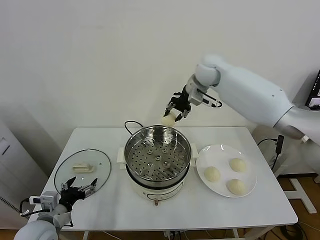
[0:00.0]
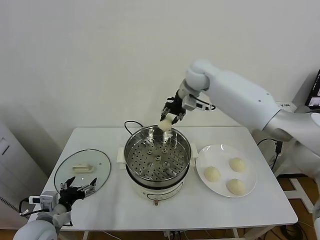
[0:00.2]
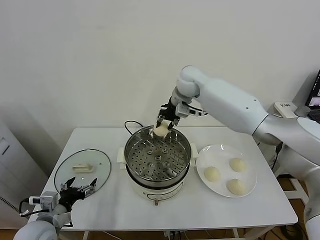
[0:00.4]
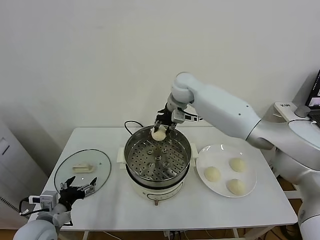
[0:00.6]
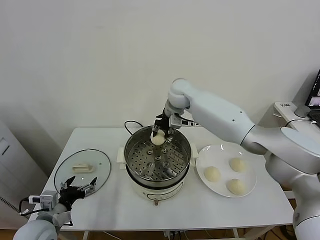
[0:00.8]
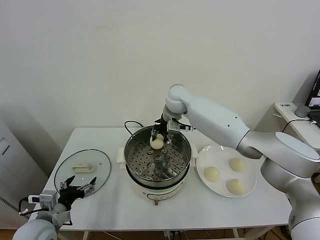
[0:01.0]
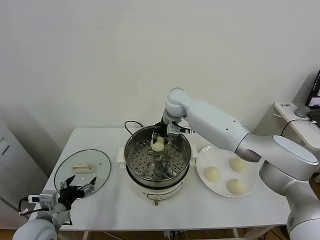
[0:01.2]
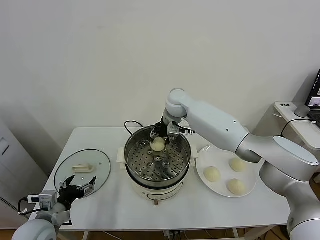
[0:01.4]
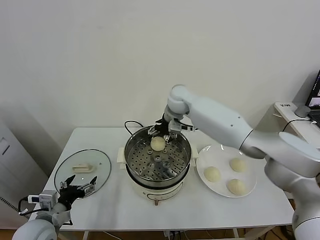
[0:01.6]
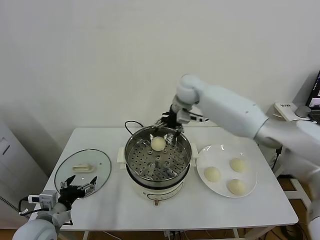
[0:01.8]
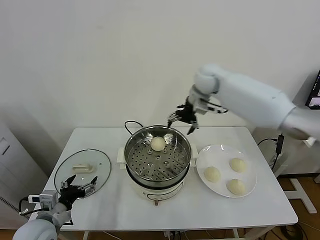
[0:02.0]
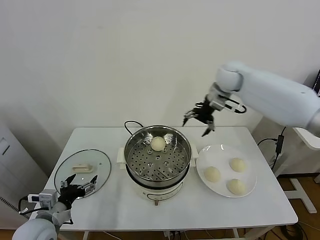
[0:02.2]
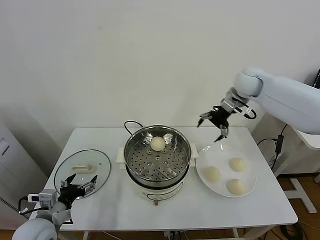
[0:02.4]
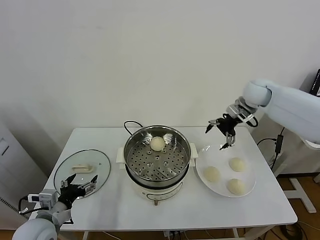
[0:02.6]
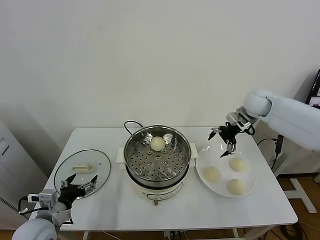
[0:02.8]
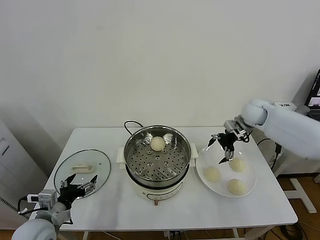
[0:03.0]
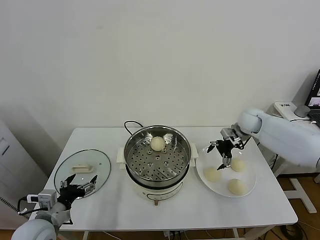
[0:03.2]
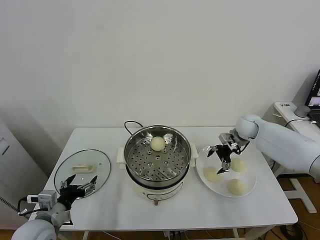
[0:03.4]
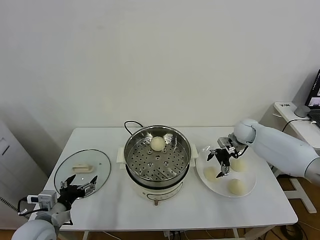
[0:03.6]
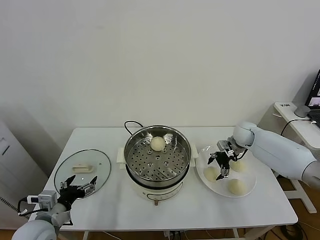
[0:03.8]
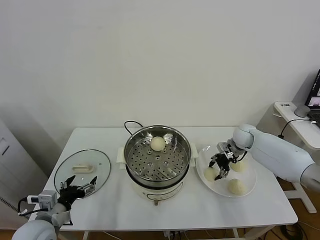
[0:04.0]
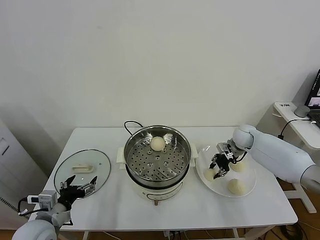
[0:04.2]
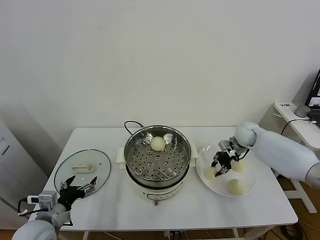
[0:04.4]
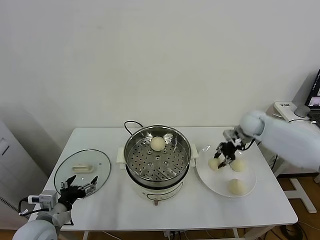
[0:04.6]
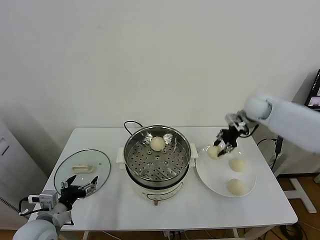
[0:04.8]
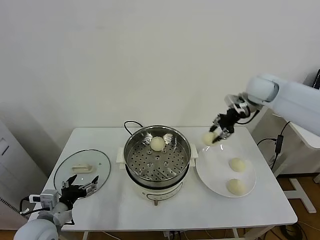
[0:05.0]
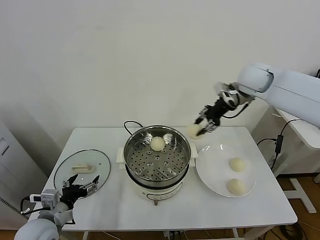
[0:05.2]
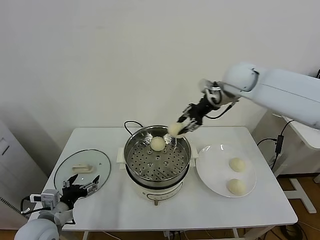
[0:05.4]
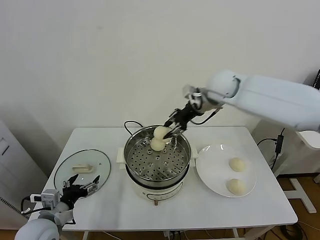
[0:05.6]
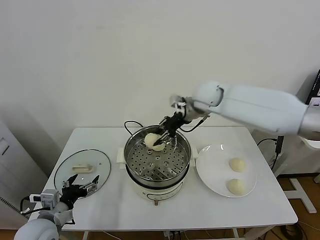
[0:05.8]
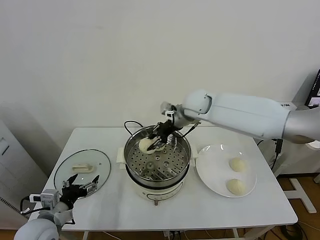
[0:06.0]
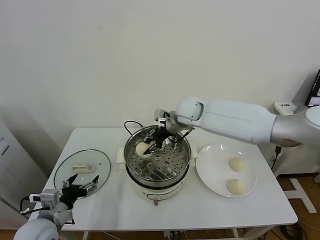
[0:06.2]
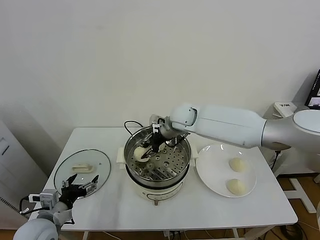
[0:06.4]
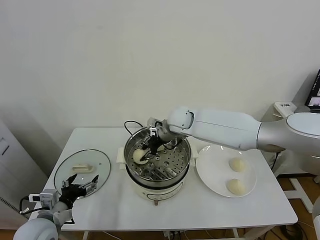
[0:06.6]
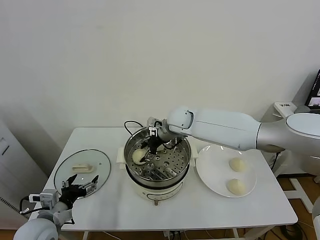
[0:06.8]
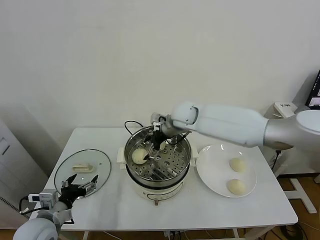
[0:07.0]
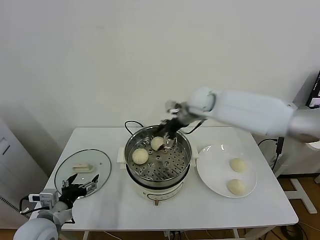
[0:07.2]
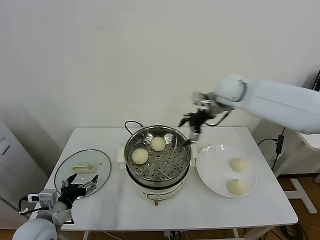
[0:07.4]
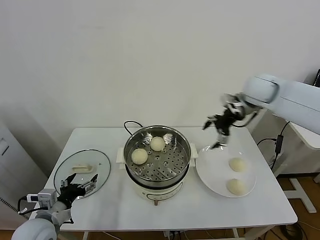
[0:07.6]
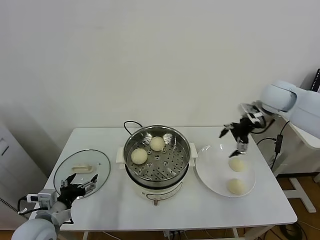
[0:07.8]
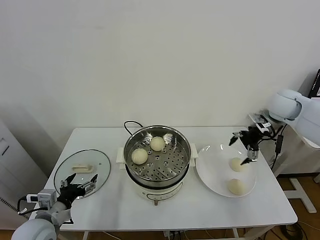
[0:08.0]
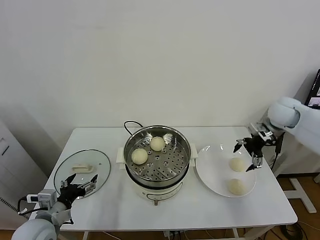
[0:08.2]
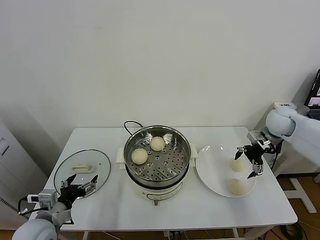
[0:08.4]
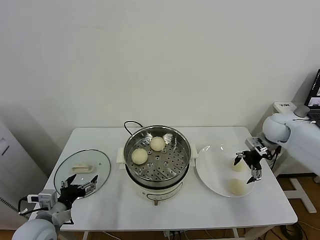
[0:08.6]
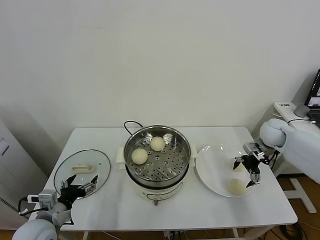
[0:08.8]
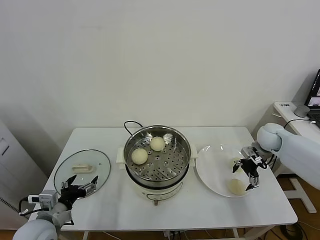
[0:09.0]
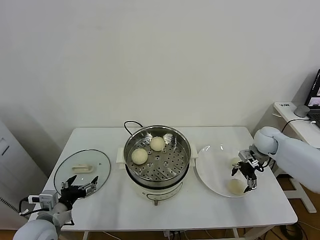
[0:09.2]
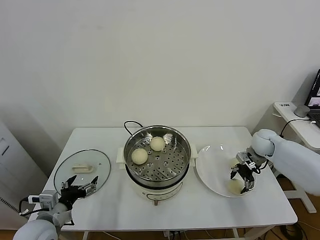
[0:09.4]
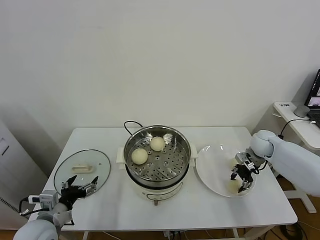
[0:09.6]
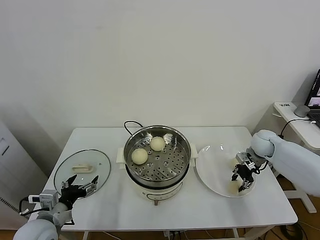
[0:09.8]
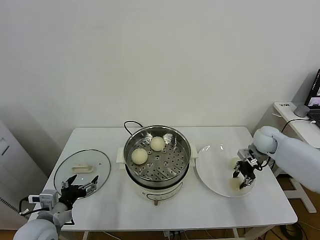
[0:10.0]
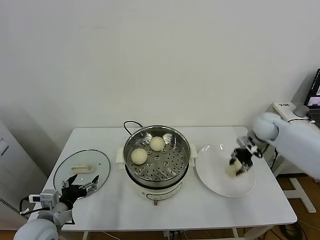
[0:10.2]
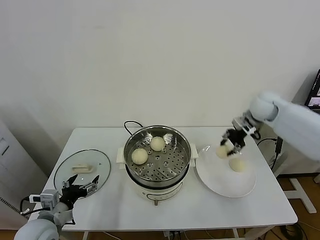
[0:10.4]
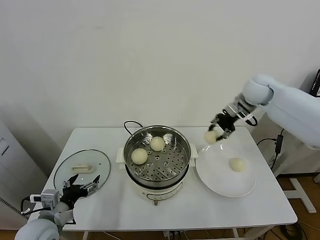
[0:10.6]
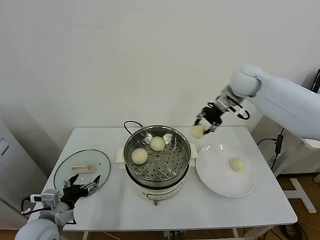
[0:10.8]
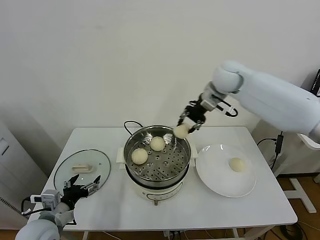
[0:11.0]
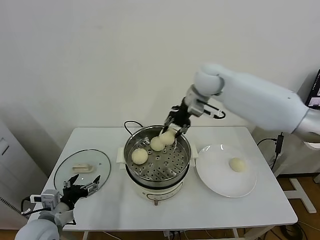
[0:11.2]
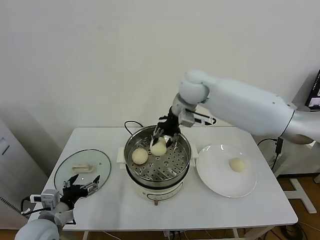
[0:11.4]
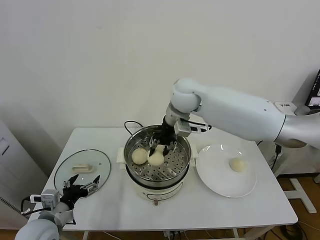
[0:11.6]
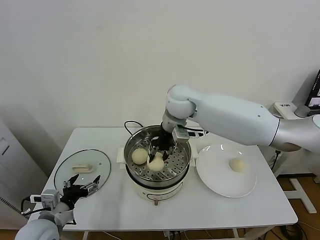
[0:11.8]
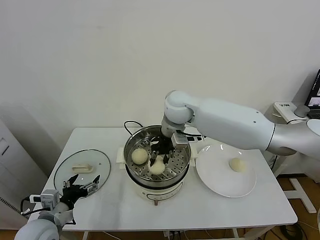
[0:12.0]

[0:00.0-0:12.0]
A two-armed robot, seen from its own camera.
Task of the whole recording: take steamed baozi put them in steamer.
Step, 0.0 to 1.6 s: Place the baozi on the steamer with right gripper.
Step, 1.8 to 4.0 s: Grasp the baozi in the plate with right gripper.
Step, 4.4 to 7.0 s: Place the baozi on the steamer with right gripper.
Step, 7.2 to 9.6 s: Grasp the baozi in the plate with right gripper.
0.0 to 1.6 s: The right gripper goes approximately 10 cm downward and to the left, and opens its fingers.
1.6 to 3.0 s: The right gripper heads to the right, covering about 25 cm.
3.0 to 4.4 s: The right gripper travels downward by about 5 cm, and closes.
4.4 to 6.0 s: The right gripper moves to the left and upward, approximately 25 cm.
6.0 to 7.6 s: The right gripper moves to the right, some 20 cm, and opens up.
7.6 to 9.0 s: The right gripper is displaced downward and to the right by approximately 20 cm.
9.0 to 10.4 s: The right gripper goes approximately 15 cm upward and to the left, and closes.
10.4 to 12.0 s: The right gripper goes about 30 cm to the left.

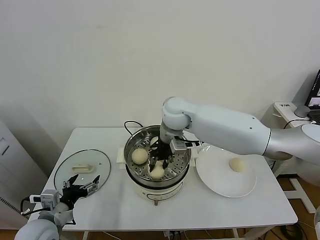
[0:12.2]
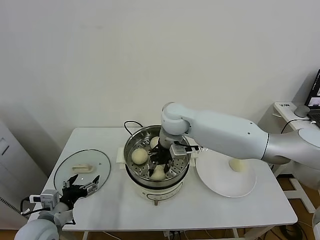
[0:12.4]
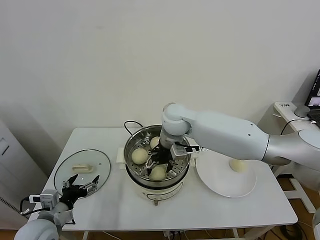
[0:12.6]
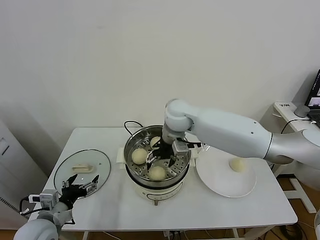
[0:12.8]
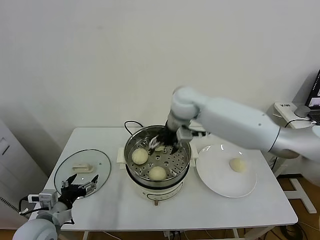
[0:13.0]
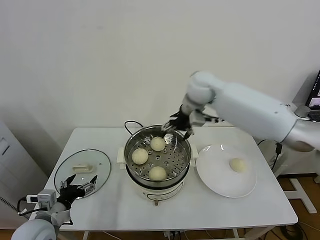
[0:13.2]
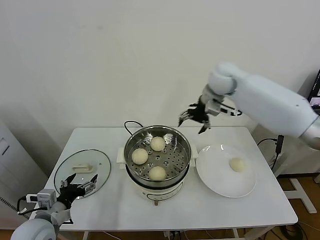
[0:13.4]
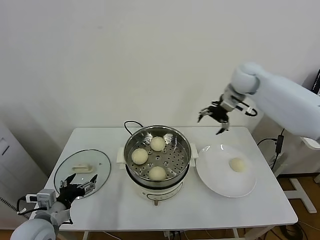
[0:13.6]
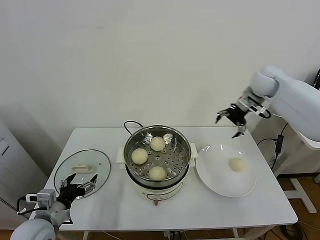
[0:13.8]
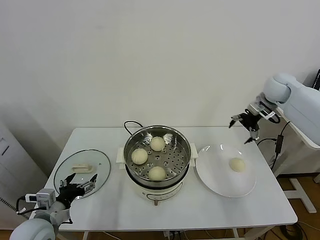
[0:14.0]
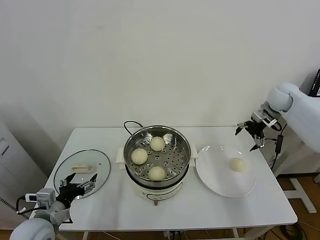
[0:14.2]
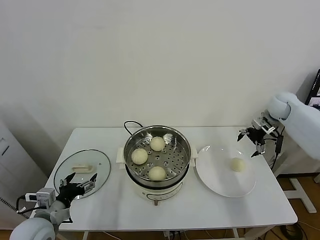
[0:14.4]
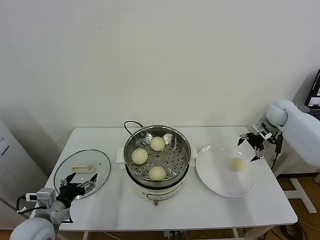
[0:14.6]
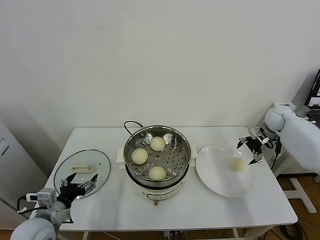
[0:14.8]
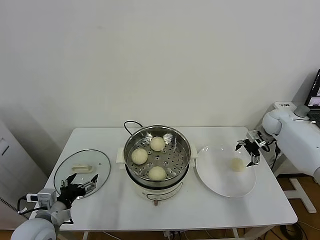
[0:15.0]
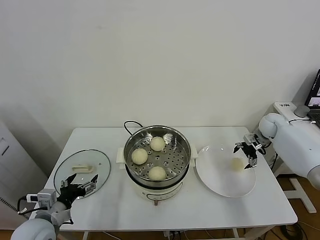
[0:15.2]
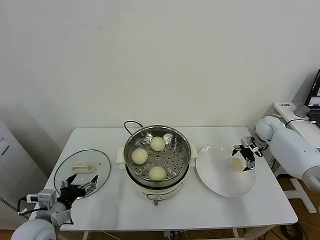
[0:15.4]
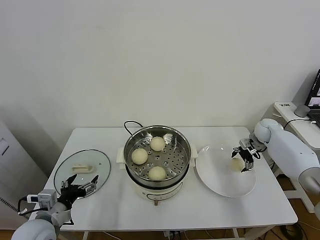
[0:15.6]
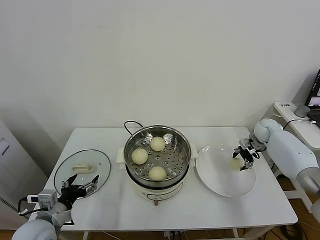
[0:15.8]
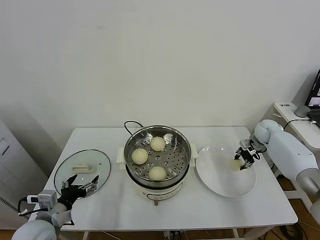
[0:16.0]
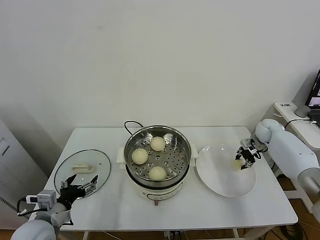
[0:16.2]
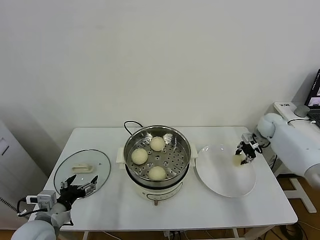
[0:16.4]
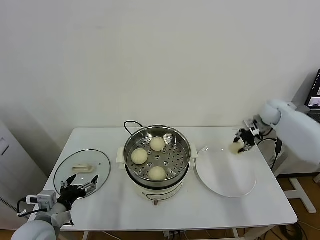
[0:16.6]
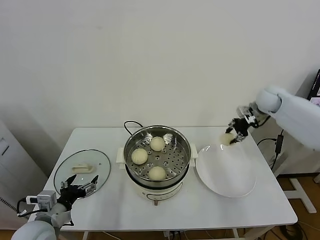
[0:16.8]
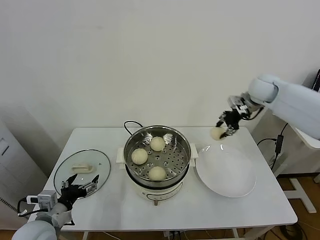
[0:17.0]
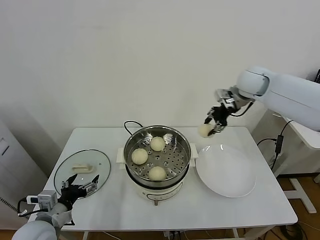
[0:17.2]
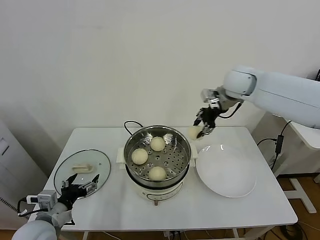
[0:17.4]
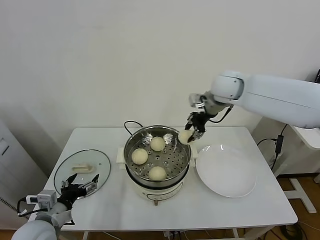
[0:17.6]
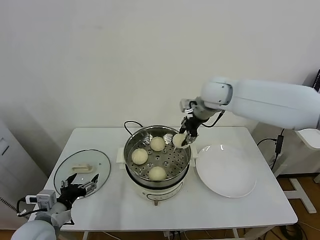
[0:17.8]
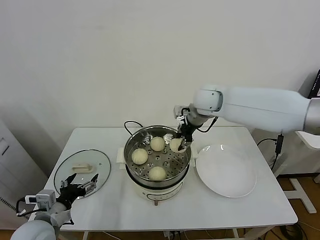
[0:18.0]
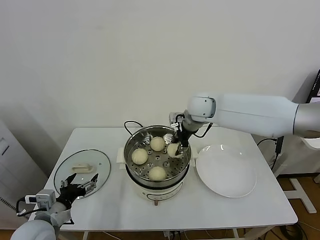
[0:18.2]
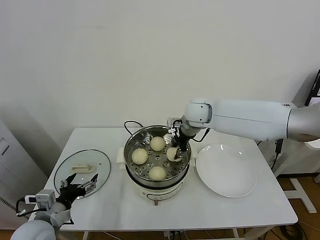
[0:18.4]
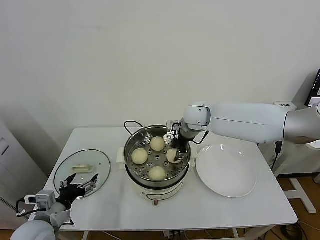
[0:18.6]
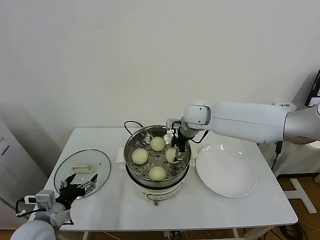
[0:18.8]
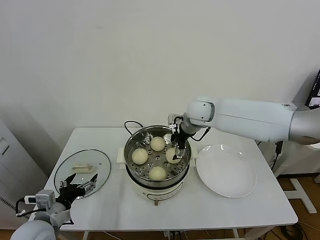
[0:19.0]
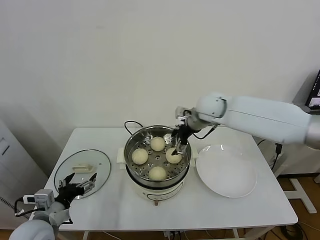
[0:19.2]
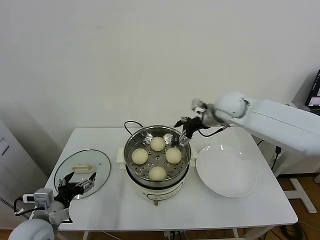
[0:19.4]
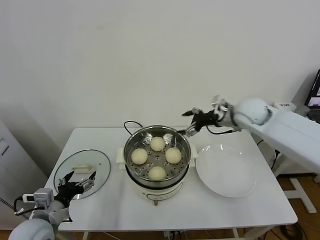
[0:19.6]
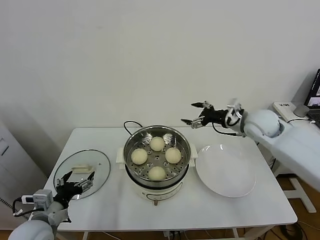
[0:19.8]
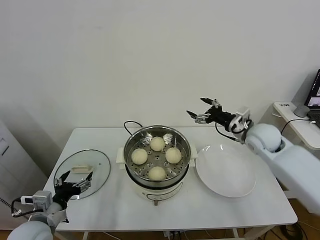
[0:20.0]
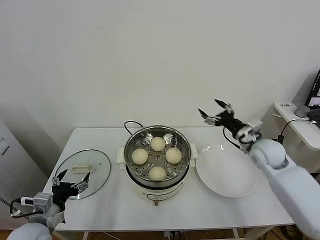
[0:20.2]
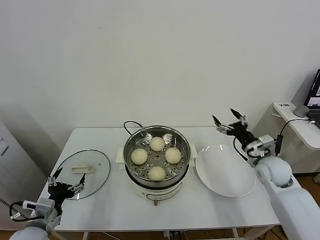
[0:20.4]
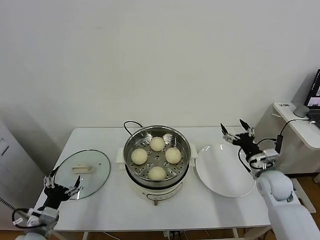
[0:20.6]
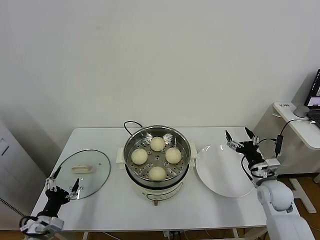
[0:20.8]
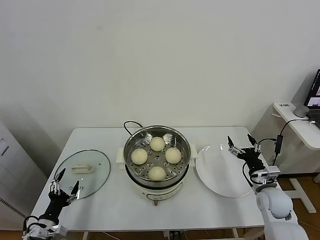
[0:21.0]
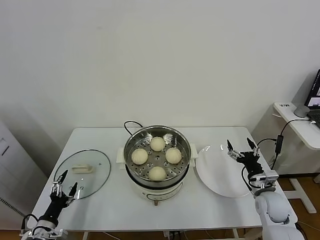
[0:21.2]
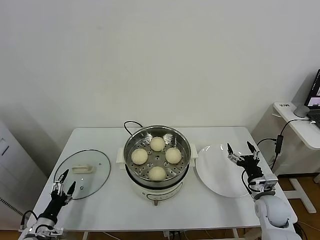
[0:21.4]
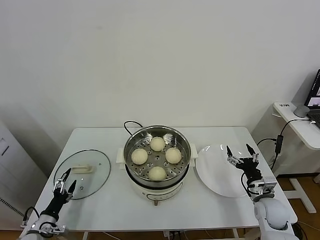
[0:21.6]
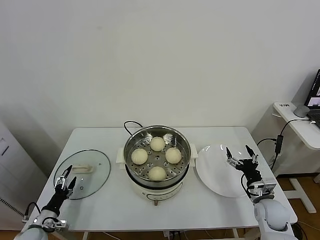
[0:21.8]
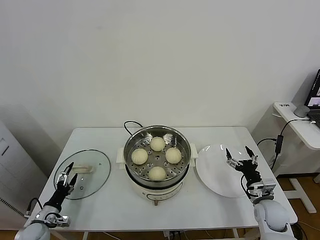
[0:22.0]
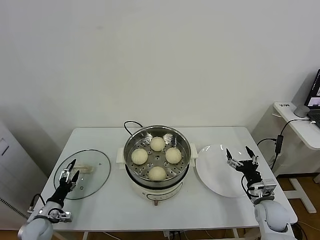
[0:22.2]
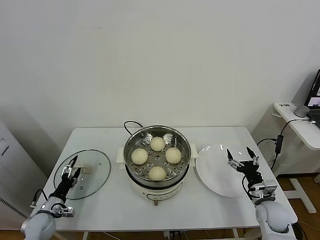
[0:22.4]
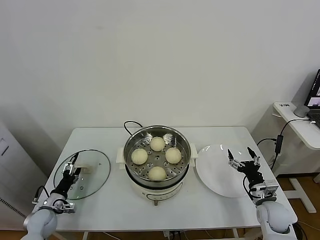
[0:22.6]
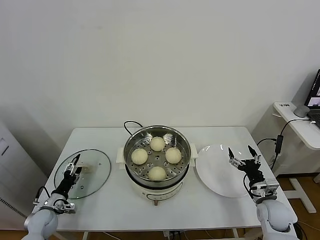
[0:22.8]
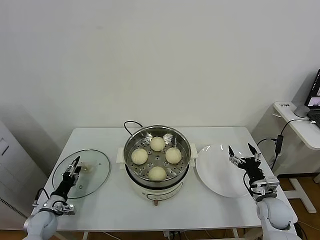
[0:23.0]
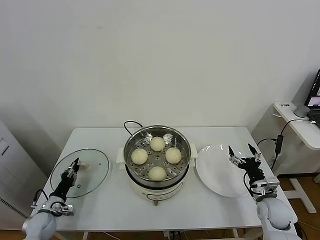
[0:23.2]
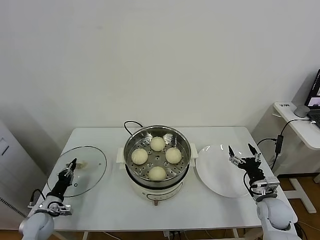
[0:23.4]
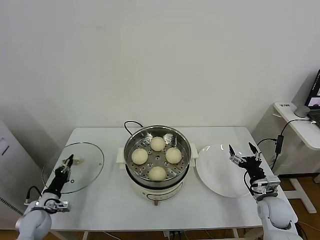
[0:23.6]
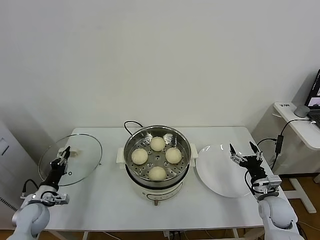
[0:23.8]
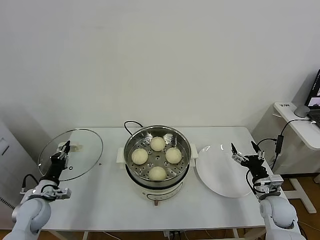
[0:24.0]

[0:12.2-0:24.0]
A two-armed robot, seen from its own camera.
Task of the whole recording: take steamed baozi put them in steamer.
Step, 13.0 to 15.8 s: Grasp the baozi in the plate with right gripper.
Step, 16.0 to 19.0 s: Place the baozi on the steamer with right gripper.
Step, 19.2 to 23.6 s: Grasp the pot lid with left gripper.
12.2 to 13.6 s: The right gripper moves to the right, some 25 cm, and opens its fingers.
13.6 to 15.2 s: The right gripper moves downward and to the right, about 25 cm.
15.2 to 16.6 s: The right gripper is displaced upward by some 10 cm, and closes its fingers.
16.6 to 18.2 s: The right gripper shifts about 30 cm to the left.
18.2 to 19.6 s: The right gripper heads to the right, covering about 15 cm, and opens its fingers.
19.6 to 21.0 s: The right gripper goes about 30 cm downward and backward. The left gripper travels downward and to the left by some 15 cm.
21.0 to 22.6 s: The left gripper moves forward and downward, roughly 15 cm.
22.6 to 24.0 s: The left gripper is displaced upward by roughly 10 cm, and closes.
